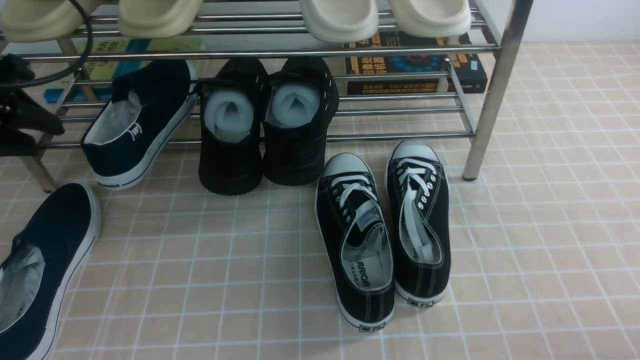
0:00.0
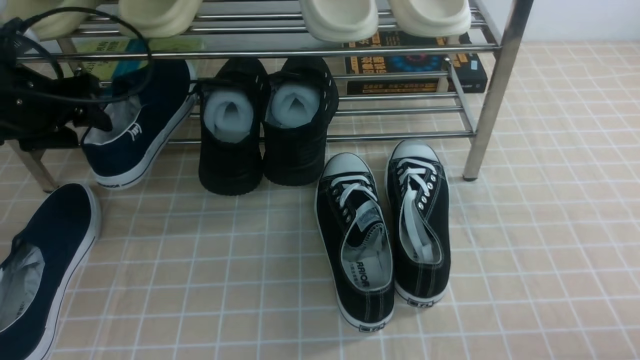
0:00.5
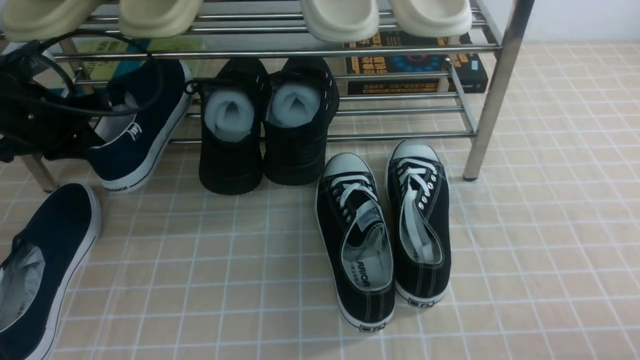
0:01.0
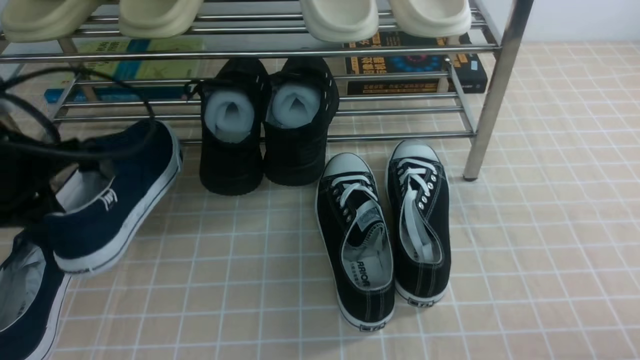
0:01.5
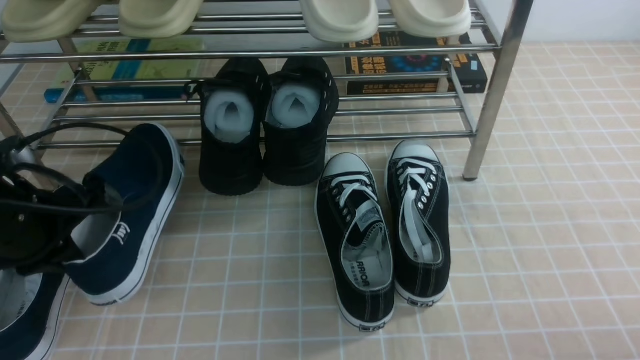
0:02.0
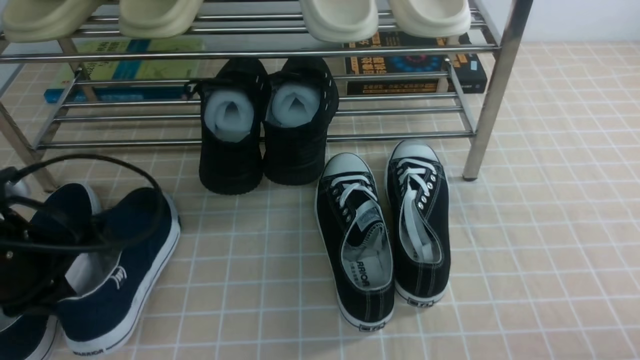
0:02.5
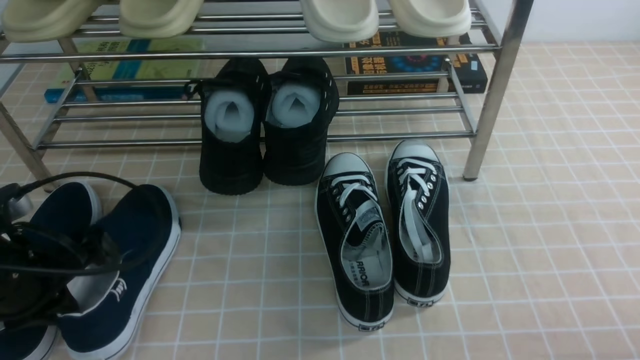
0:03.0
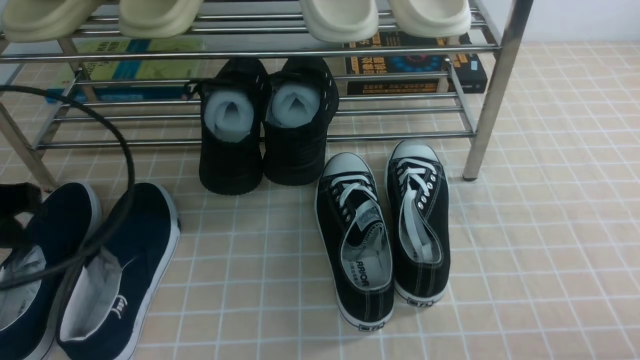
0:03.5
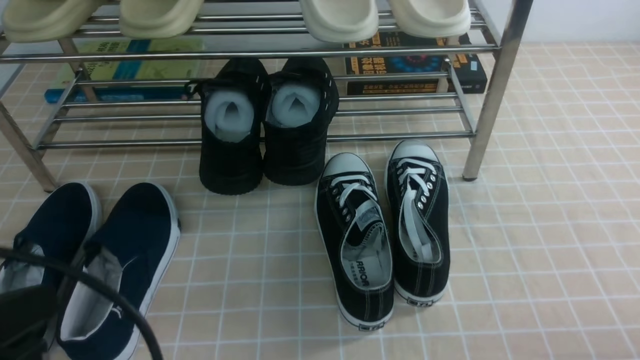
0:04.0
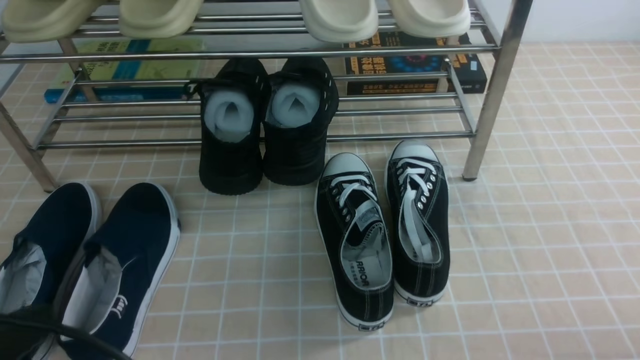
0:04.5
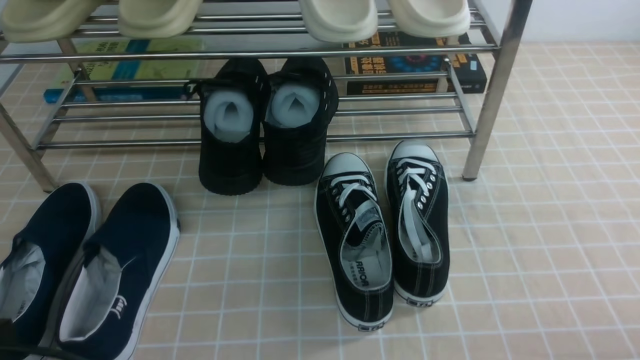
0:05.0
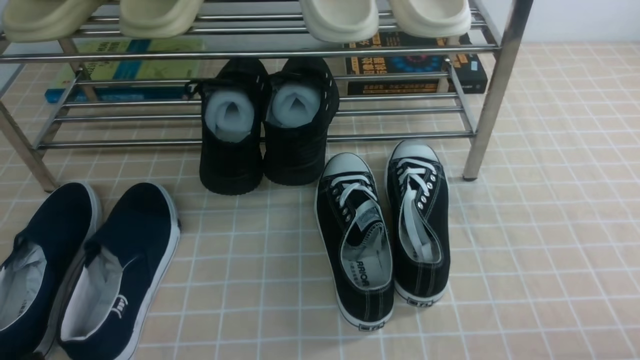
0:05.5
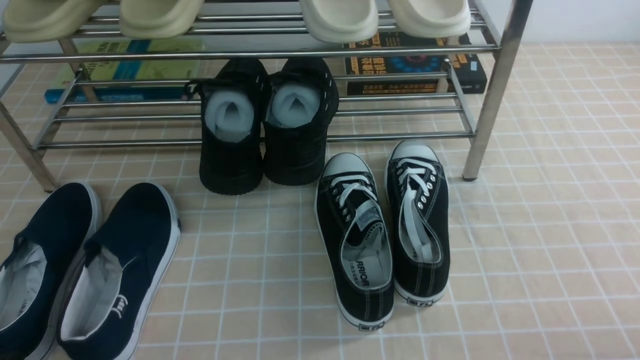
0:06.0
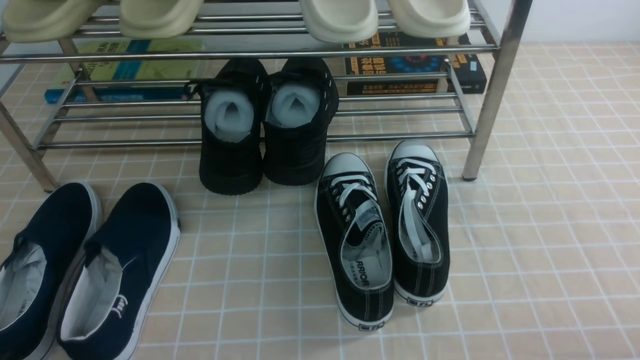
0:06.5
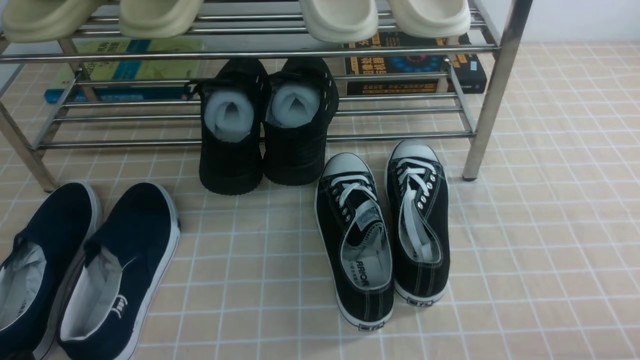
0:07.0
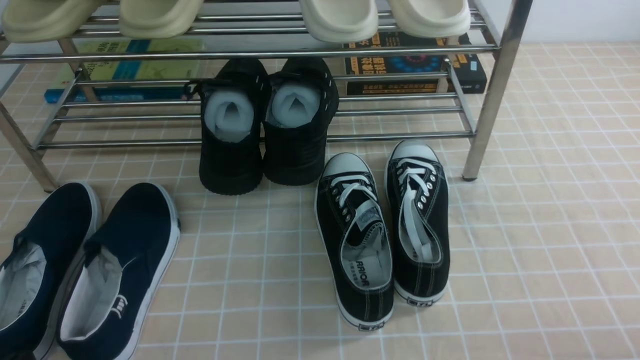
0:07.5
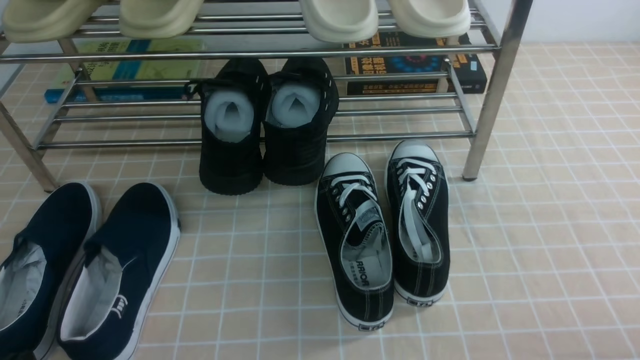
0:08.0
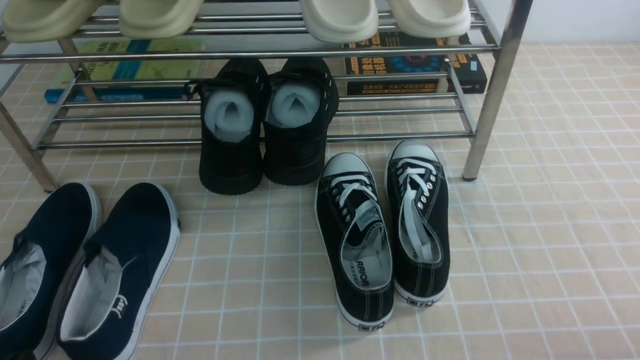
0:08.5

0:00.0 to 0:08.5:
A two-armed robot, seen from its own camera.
Step, 0:01.0 to 0:03.0: Use your left arm to remove the clamped shoe from the shoe rack and put it down.
0:00.0 to 0:02.0: The left gripper moves downward, backward and to the right, approximately 10 cm, and closes its fingers.
0:02.0 to 0:04.0: The left gripper heads backward, covering about 20 cm, and opens, then closes once more.
0:04.0 to 0:06.5: The left gripper moves downward, about 15 cm.
0:06.5 to 0:08.5: Neither gripper changes place.
